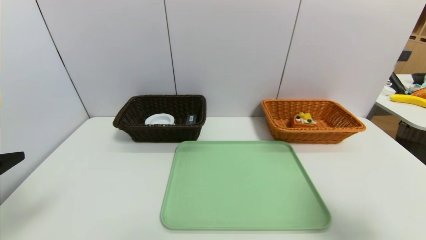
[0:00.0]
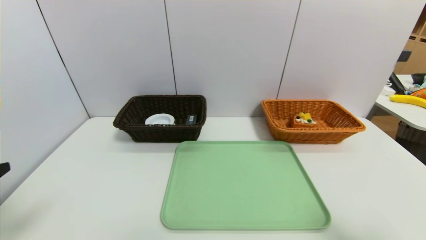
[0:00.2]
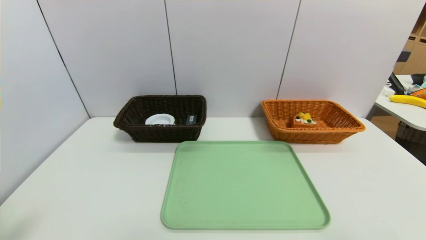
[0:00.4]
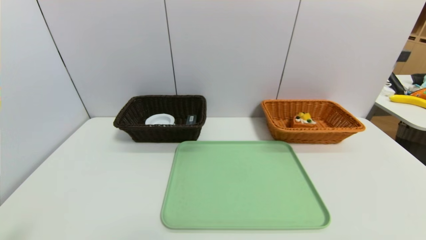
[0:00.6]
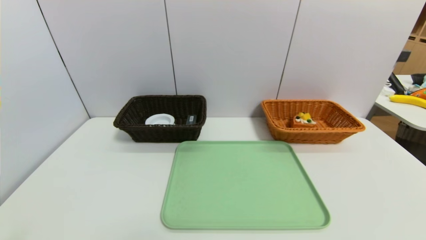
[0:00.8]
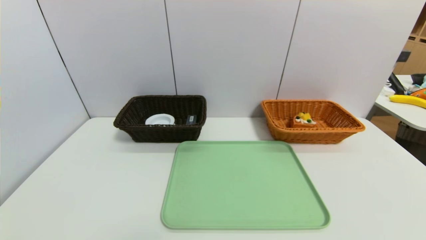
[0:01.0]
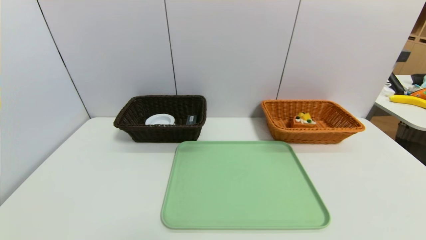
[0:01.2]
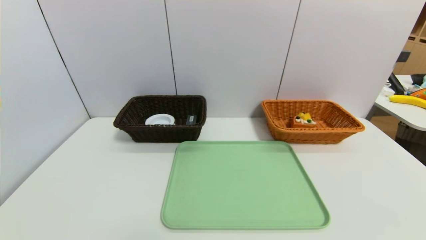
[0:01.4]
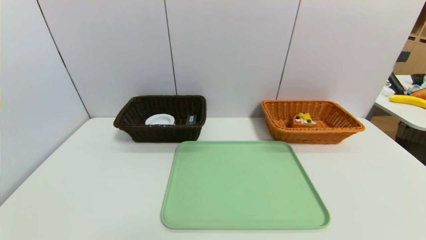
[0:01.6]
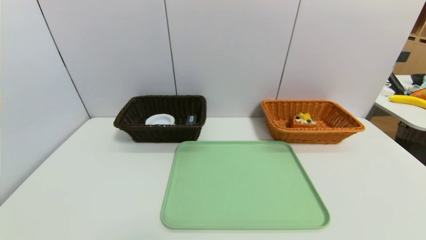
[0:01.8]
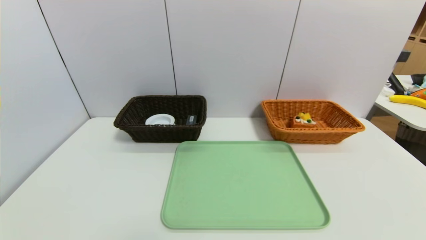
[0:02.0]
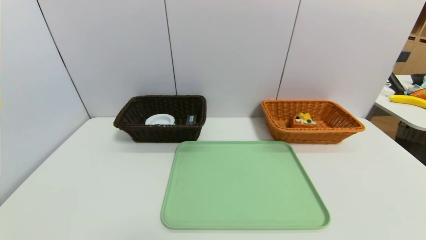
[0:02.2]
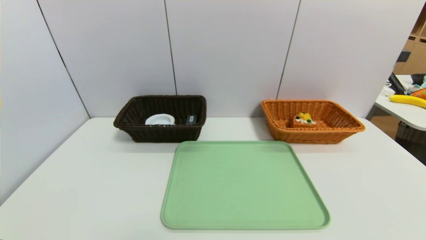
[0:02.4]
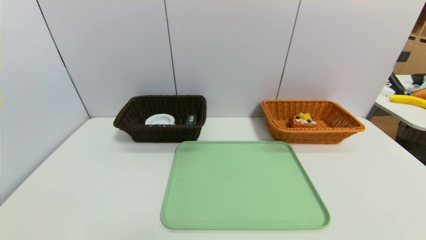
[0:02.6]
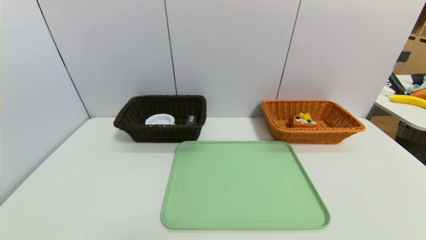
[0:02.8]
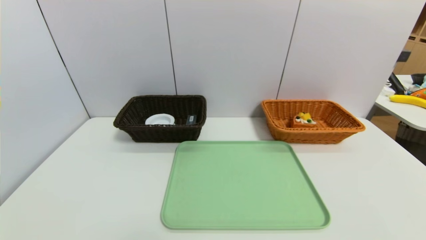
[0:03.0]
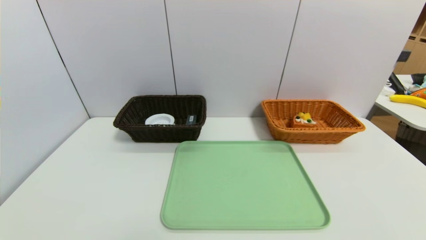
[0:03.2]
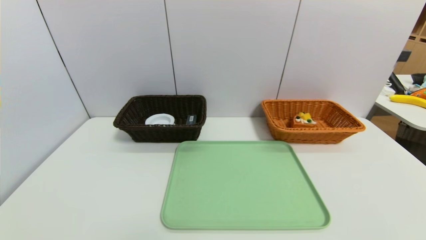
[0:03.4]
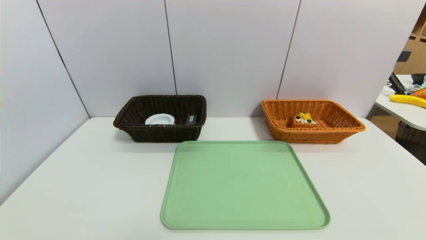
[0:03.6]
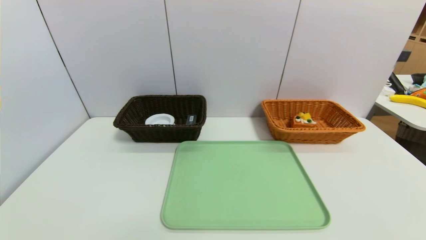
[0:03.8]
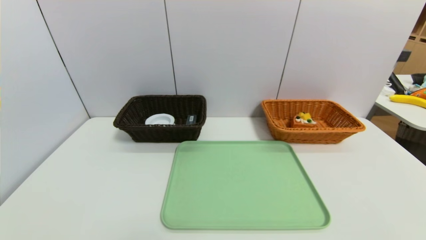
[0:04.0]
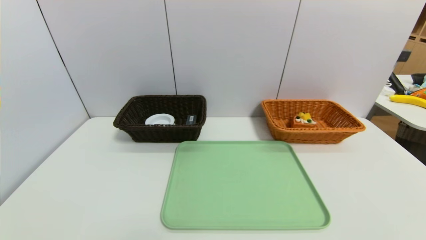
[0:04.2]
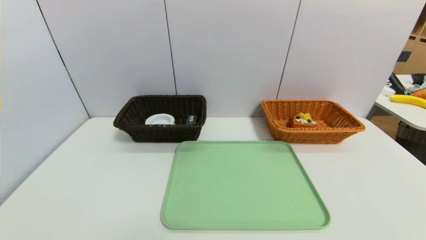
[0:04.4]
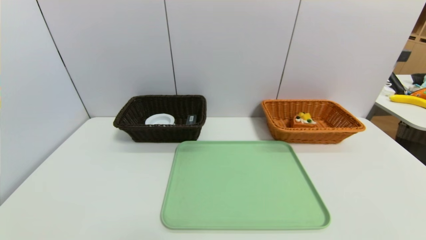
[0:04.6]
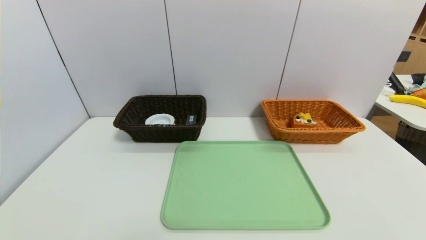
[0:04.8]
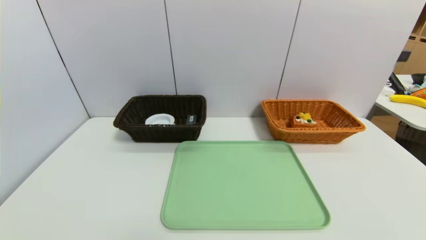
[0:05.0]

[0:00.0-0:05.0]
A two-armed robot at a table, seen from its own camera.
Task of the whole recording: place the food in the right basket with the right gripper, and place the non food items in the left basket with the left gripper.
0:00.0 to 0:01.6: The two grippers go roughly 20 cm backward and downward.

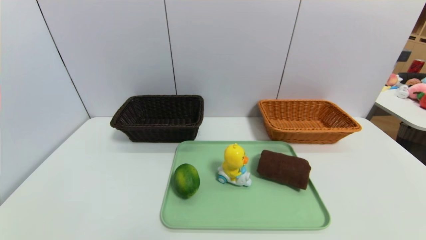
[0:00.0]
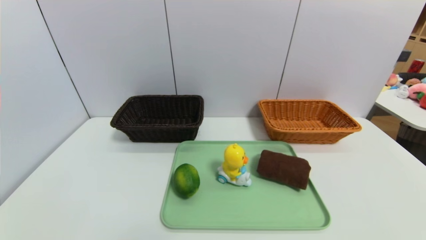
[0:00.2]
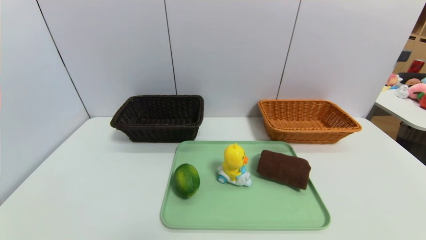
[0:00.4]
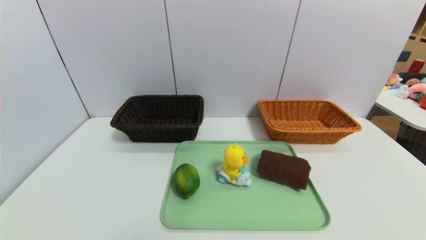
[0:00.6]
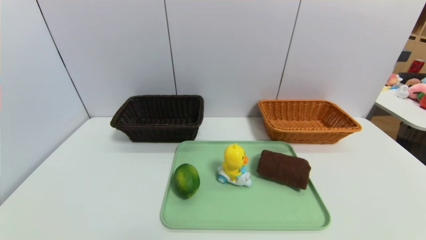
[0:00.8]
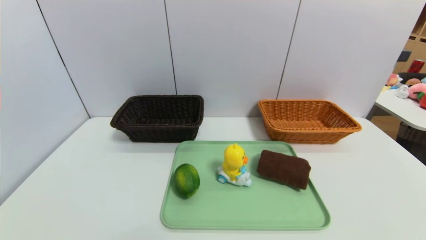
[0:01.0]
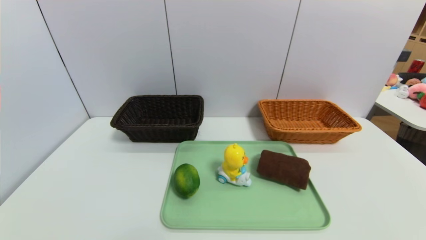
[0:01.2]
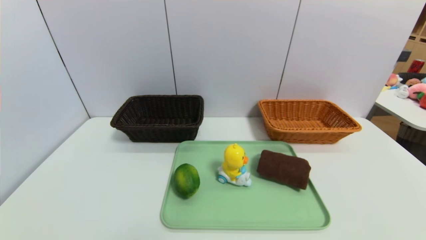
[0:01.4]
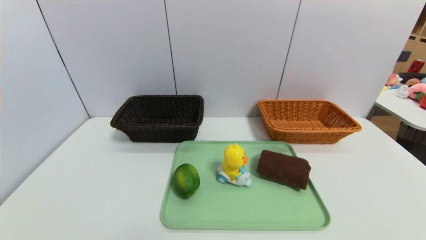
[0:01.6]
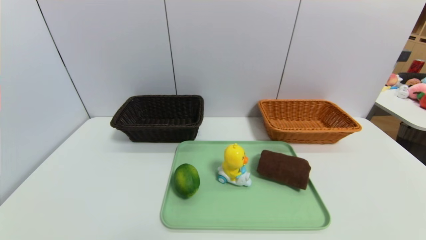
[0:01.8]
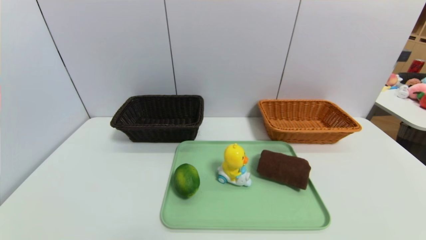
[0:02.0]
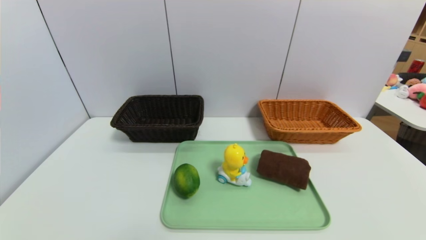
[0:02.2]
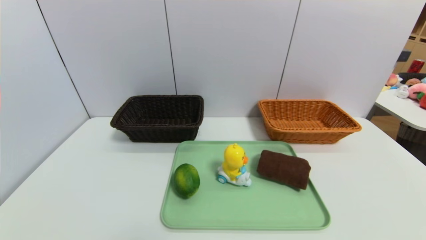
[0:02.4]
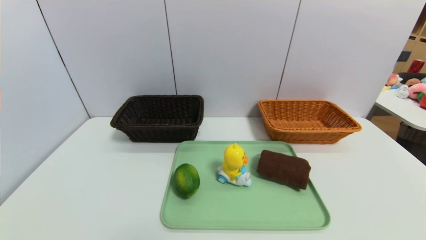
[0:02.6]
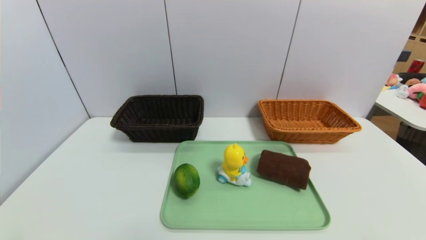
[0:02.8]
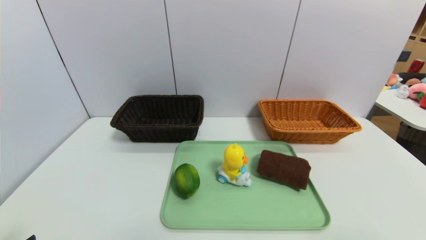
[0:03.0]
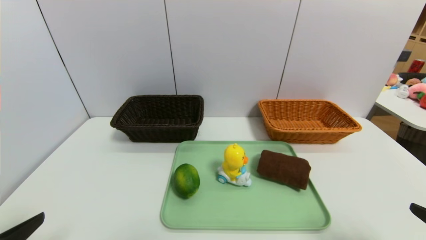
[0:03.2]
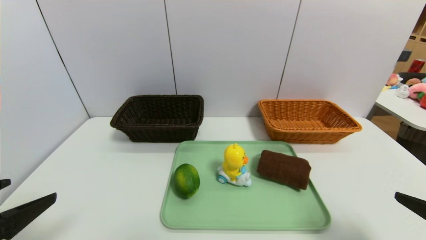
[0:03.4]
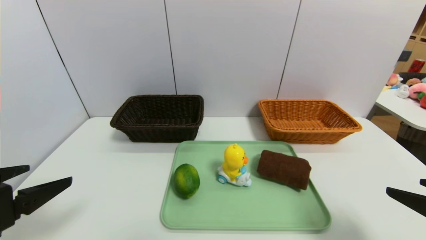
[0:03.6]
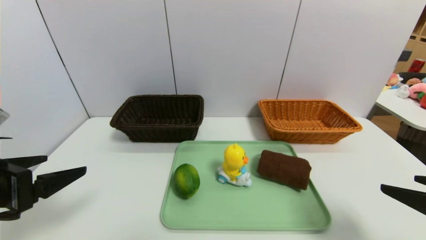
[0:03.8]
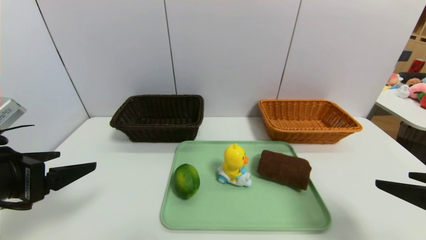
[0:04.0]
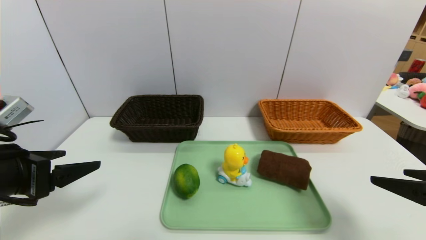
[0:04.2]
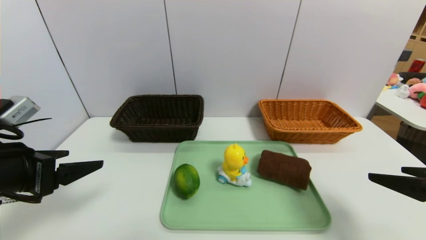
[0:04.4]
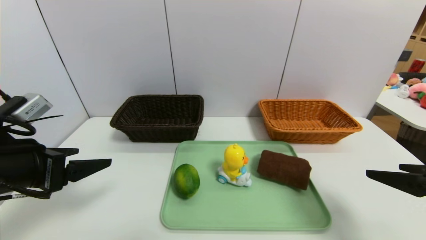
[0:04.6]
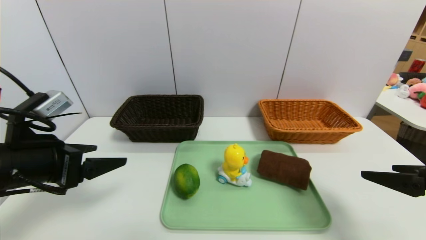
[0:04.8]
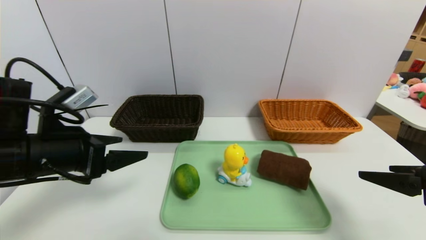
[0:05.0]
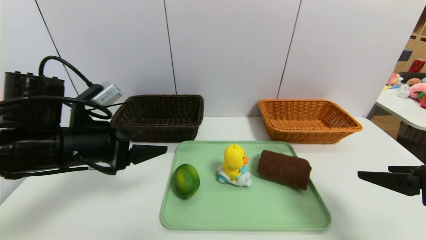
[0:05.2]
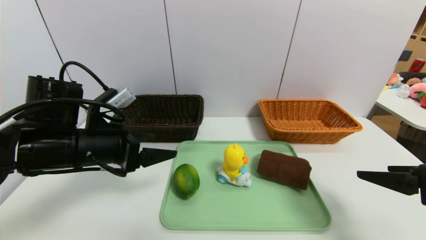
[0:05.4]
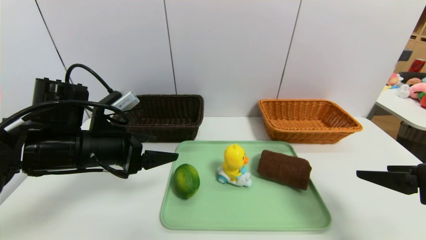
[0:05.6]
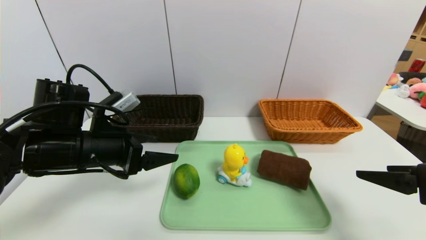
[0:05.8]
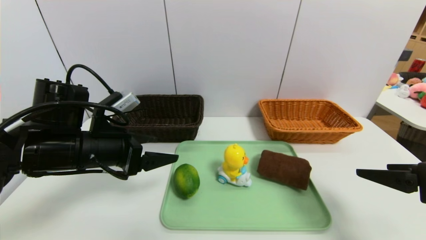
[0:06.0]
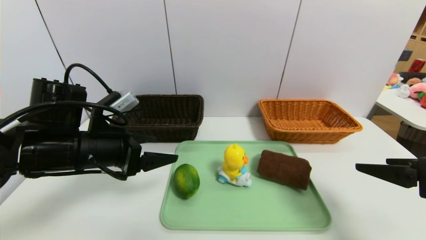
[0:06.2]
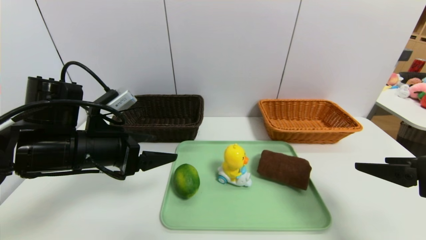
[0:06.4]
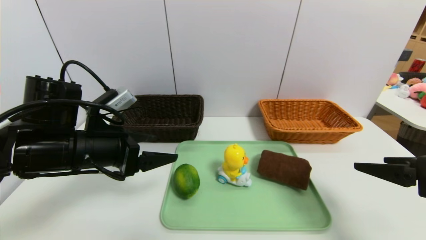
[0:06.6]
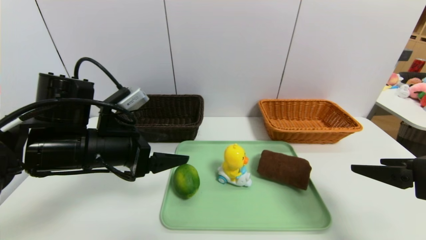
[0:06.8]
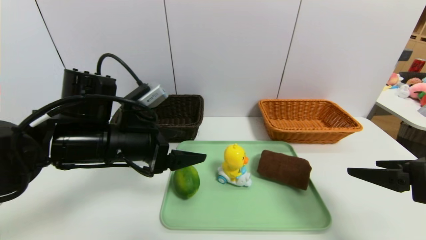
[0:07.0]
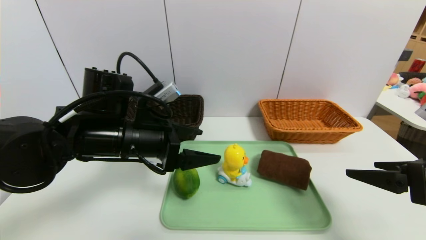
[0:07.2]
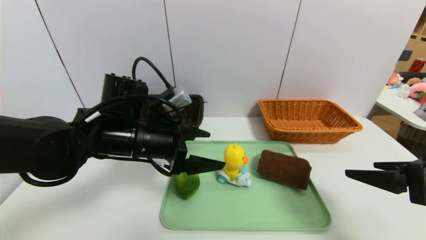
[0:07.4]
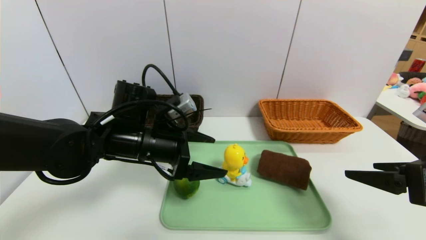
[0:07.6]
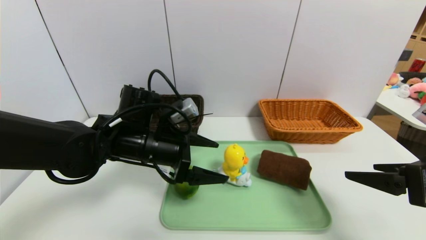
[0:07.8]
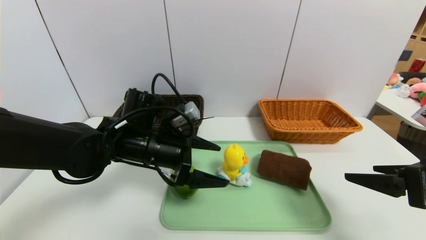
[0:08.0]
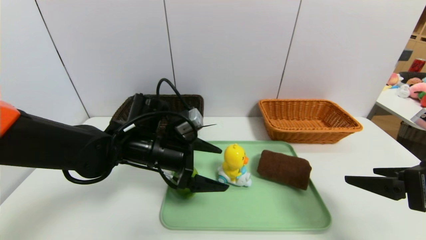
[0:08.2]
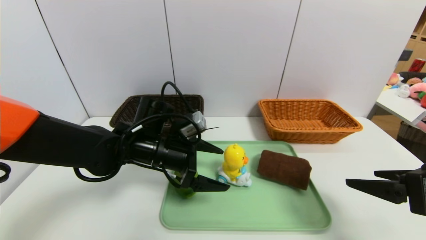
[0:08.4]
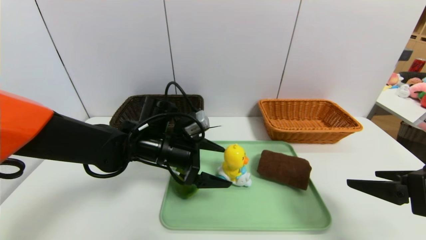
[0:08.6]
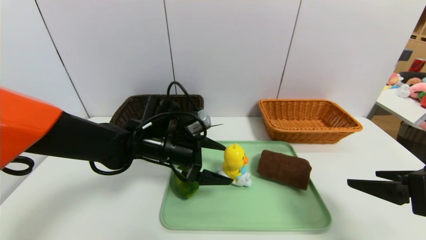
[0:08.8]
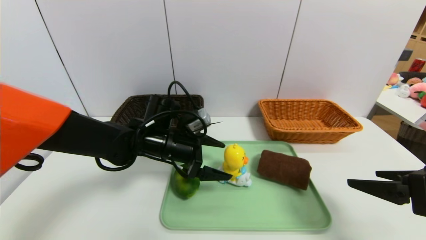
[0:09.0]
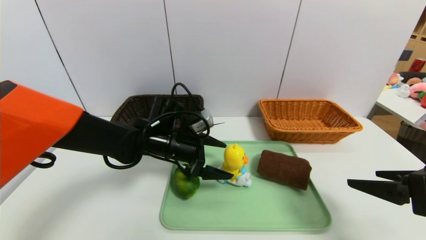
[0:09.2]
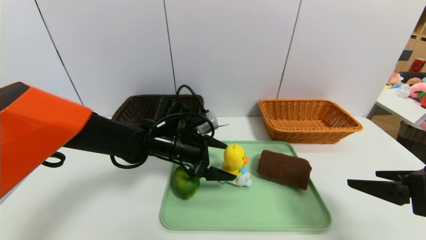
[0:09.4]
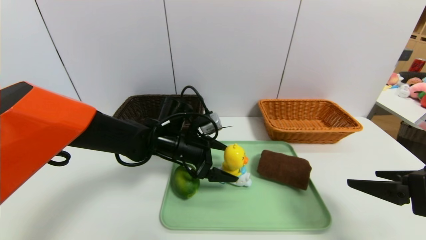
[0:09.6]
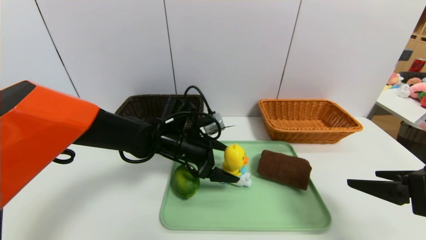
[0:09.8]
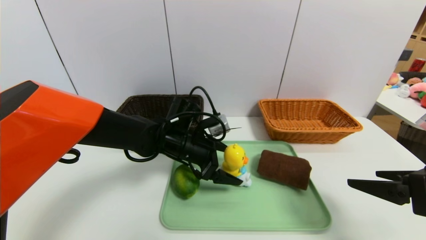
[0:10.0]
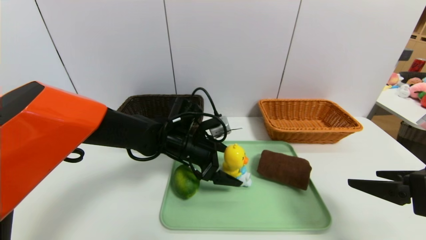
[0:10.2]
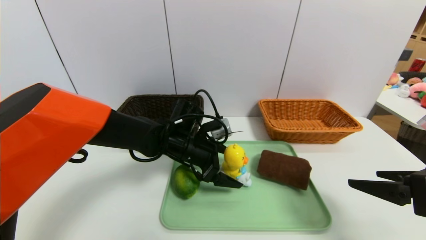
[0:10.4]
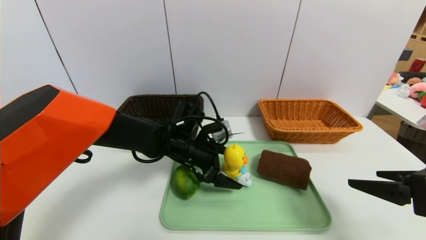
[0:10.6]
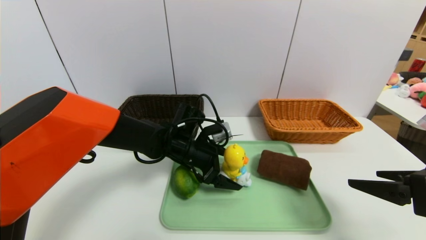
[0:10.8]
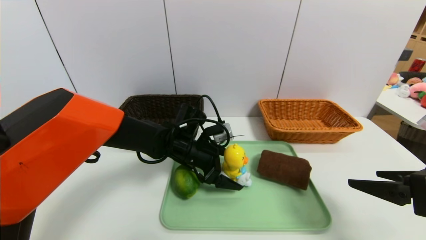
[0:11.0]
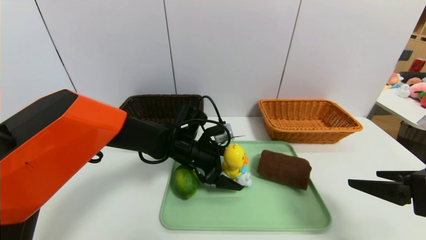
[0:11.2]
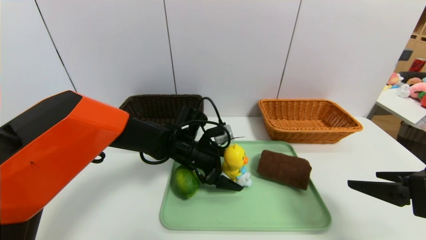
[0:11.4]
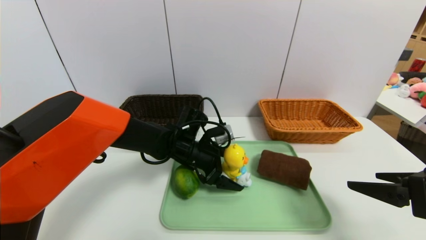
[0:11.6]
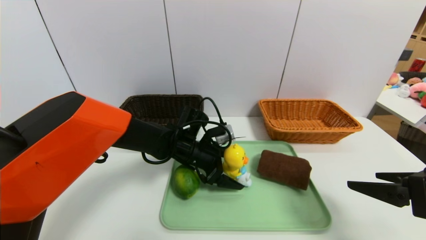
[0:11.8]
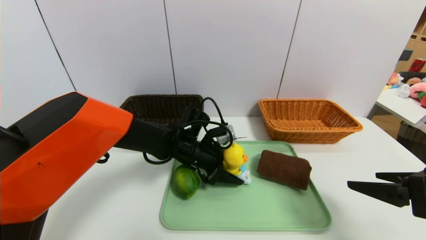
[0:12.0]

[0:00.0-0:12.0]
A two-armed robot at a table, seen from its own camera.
Task of the whole recording: place the food in the right basket with the right gripper, and place the non food items in the left basket with the left gripper.
0:00.0 to 0:01.6: Both grippers stay put.
0:03.0 to 0:04.4: Both grippers travel together forward, about 10 cm.
0:04.4 to 0:06.0: The left gripper goes about 10 cm forward and to the right.
0:06.0 to 0:07.6: The left gripper is displaced to the right by about 10 cm.
0:07.6 to 0:09.0: The left gripper is displaced forward by some 5 cm.
0:09.0 to 0:10.4: There are only small adjustments of the grippers.
0:10.4 to 0:12.0: The left gripper closes its fingers.
